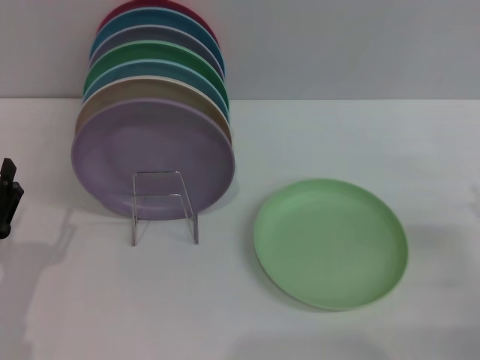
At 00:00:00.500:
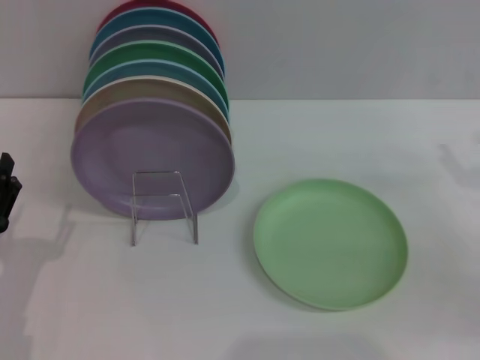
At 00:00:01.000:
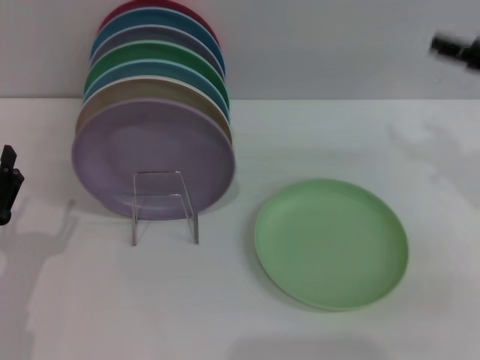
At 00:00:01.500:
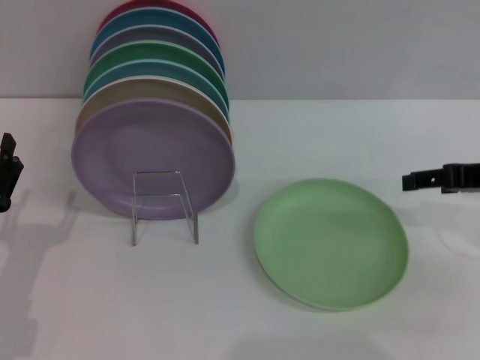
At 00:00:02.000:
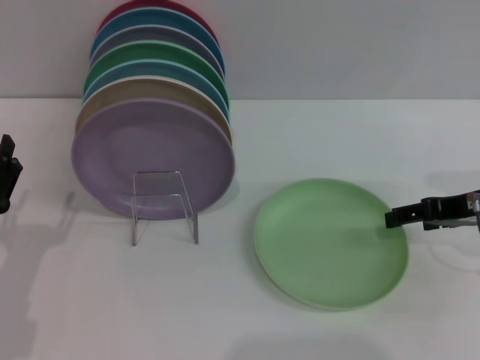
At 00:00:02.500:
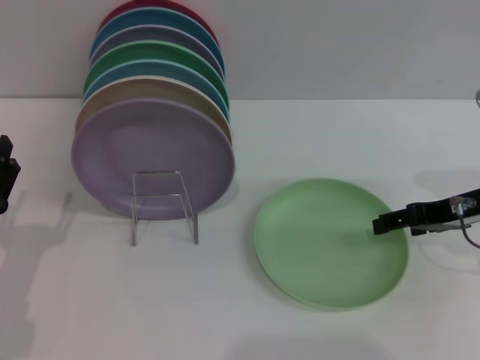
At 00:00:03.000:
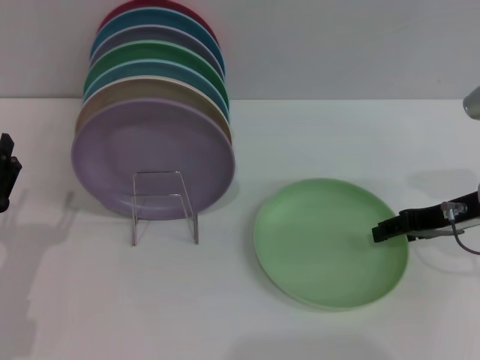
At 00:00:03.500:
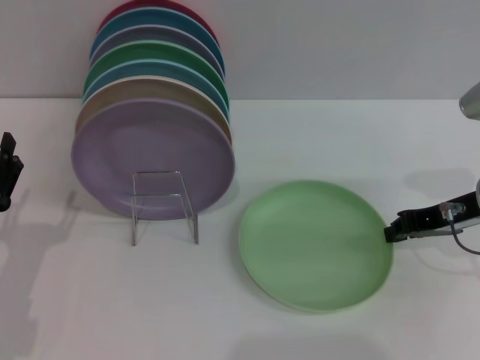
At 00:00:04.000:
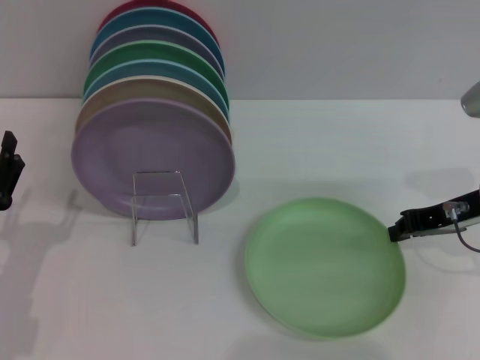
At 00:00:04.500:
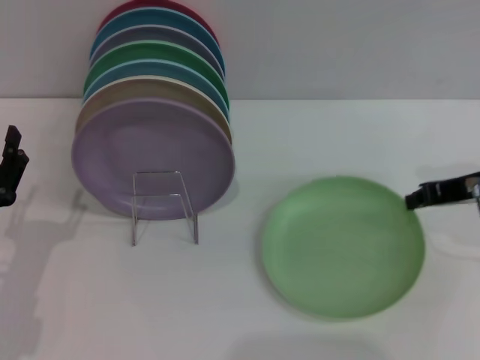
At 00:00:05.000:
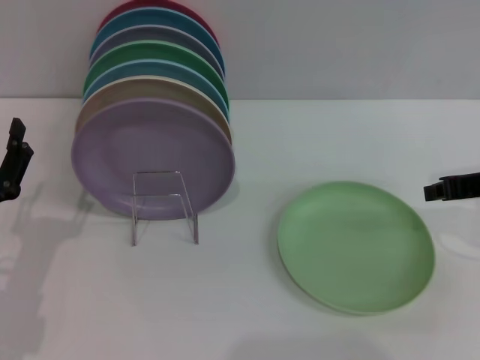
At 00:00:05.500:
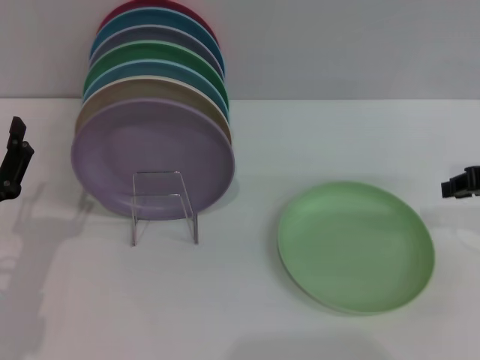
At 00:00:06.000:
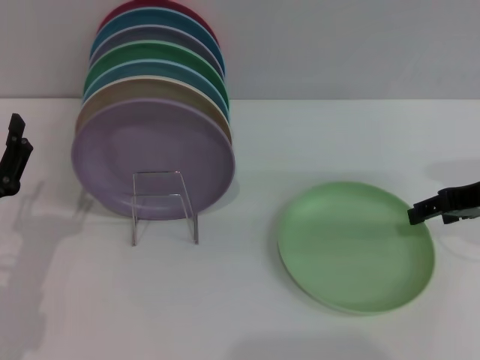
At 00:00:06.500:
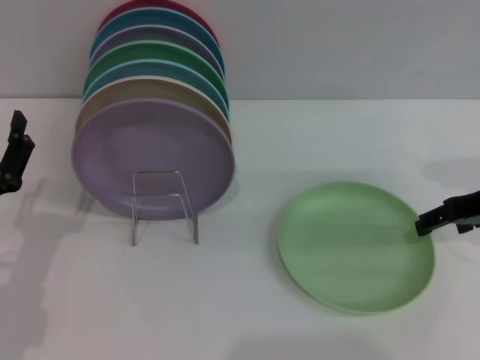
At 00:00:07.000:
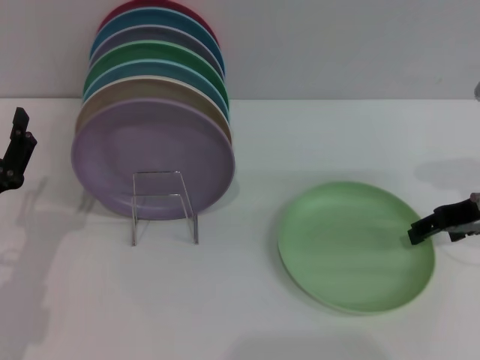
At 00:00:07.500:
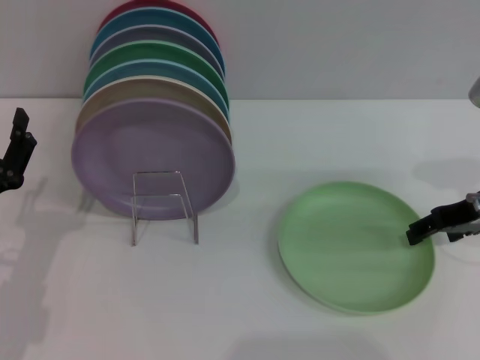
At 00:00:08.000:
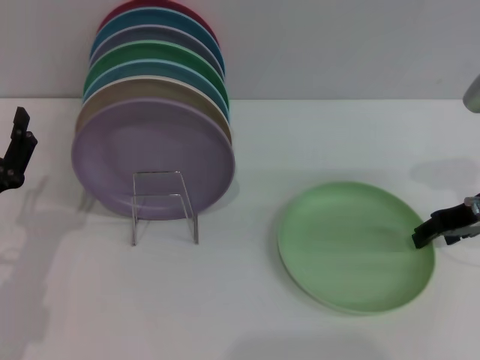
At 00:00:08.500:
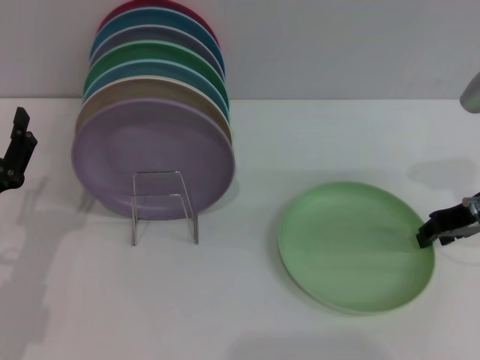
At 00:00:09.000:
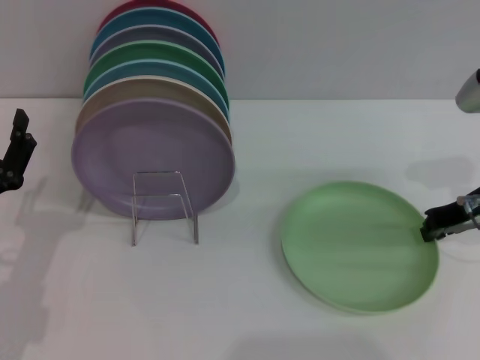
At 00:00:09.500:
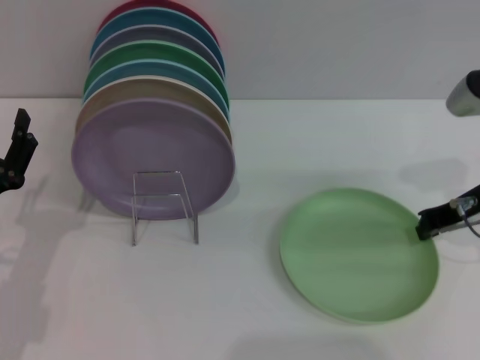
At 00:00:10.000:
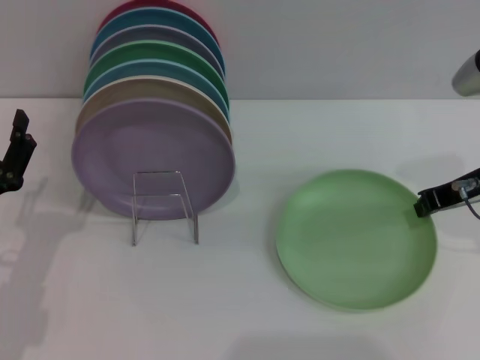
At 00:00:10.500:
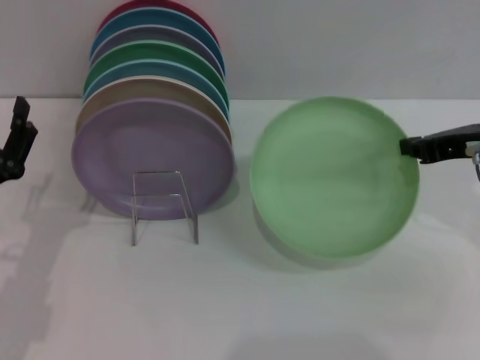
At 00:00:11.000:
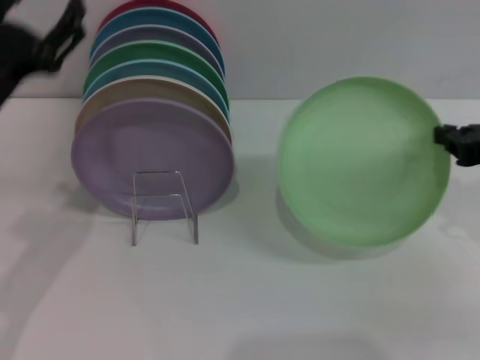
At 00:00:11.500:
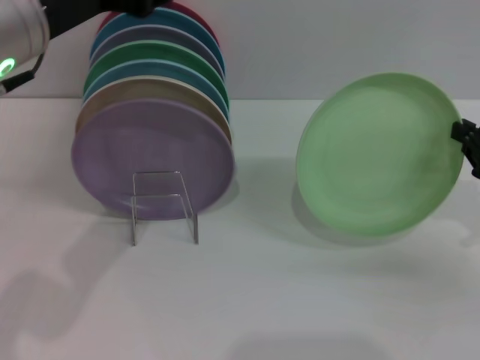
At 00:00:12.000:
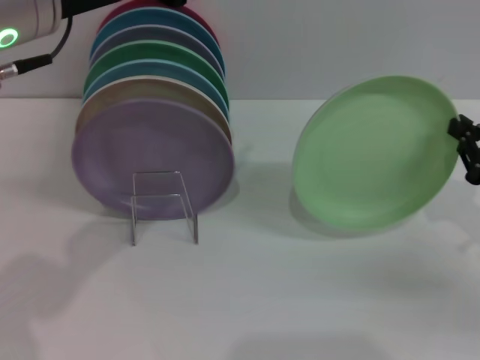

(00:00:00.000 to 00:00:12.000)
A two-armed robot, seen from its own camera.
Task of the whole recording: Grip the plate with one hand, pass it to the other, then set it on the shelf.
Step, 00:00:00.000 - 00:00:10.000: Pick up the plate with the right gripper.
00:00:00.000 - 00:00:02.000: The right gripper travels forward, upward and to the left by some 15 cm.
00:00:02.000 - 00:00:04.000: The right gripper closes its fingers.
00:00:04.000 - 00:00:06.000: The right gripper opens up.
00:00:06.000 - 00:00:08.000: The grippers stay close to where they were, moving slightly.
00:00:08.000 - 00:00:10.000: The right gripper closes up.
00:00:10.000 - 00:00:12.000: The left gripper goes roughly 30 cm upward and to the right, while the right gripper moves backward, to the right and downward, about 10 cm.

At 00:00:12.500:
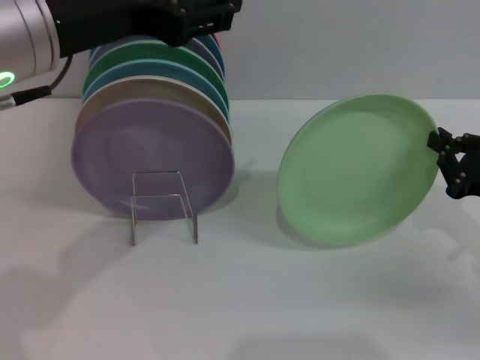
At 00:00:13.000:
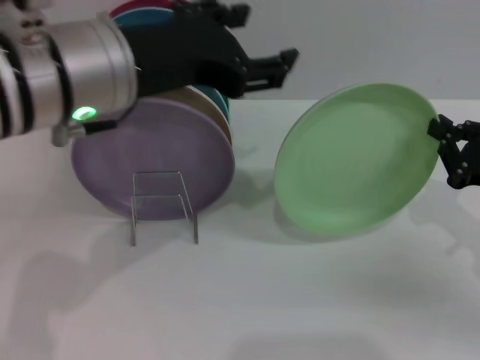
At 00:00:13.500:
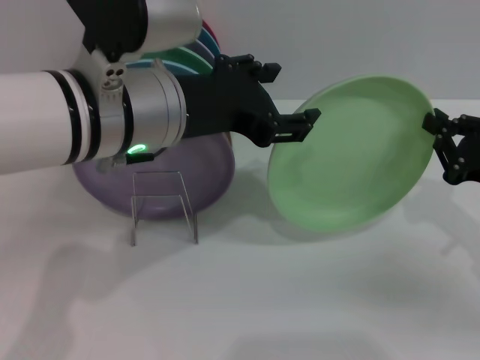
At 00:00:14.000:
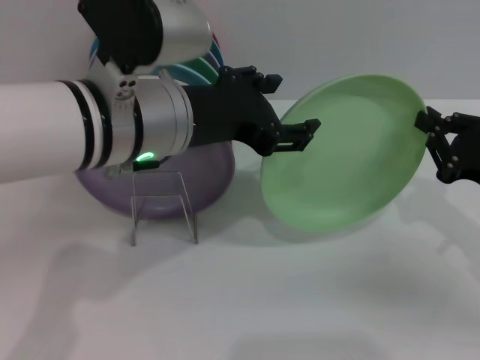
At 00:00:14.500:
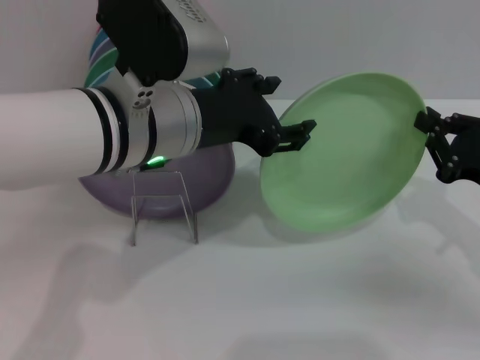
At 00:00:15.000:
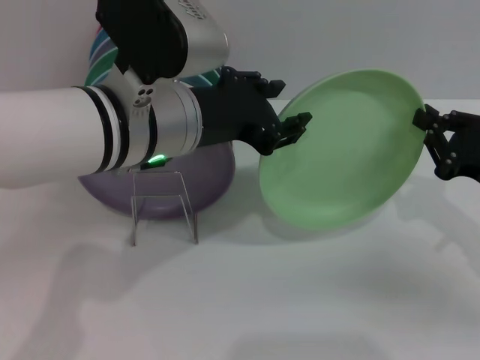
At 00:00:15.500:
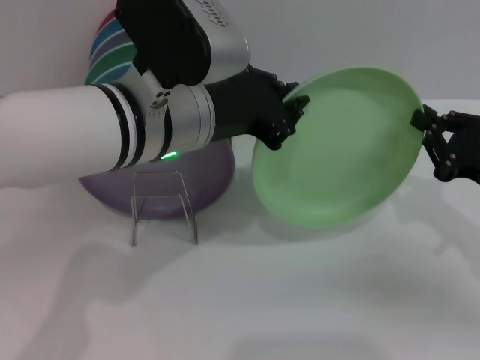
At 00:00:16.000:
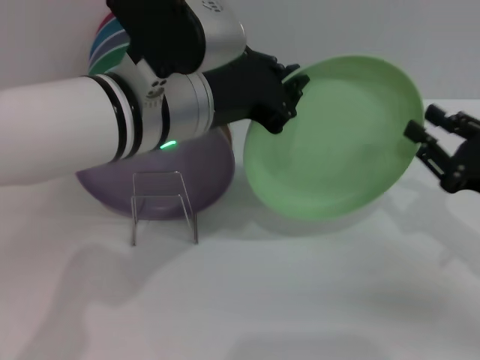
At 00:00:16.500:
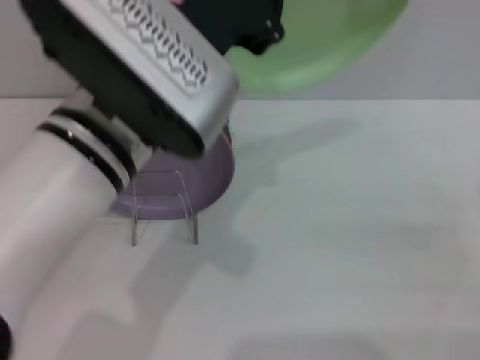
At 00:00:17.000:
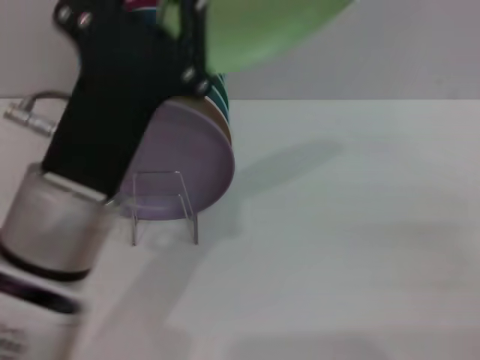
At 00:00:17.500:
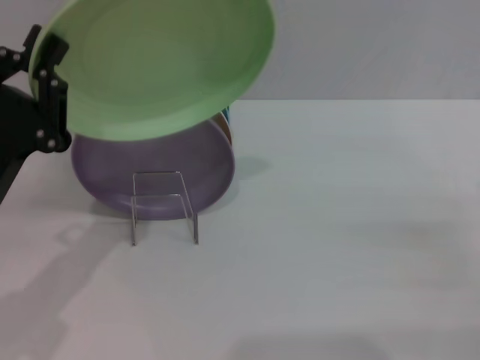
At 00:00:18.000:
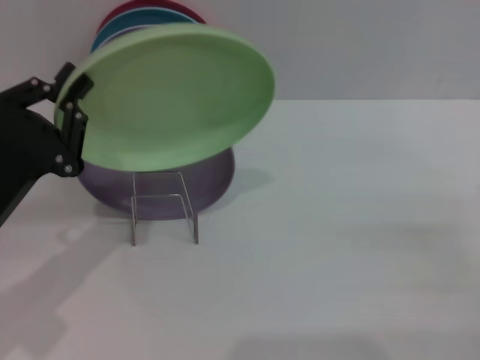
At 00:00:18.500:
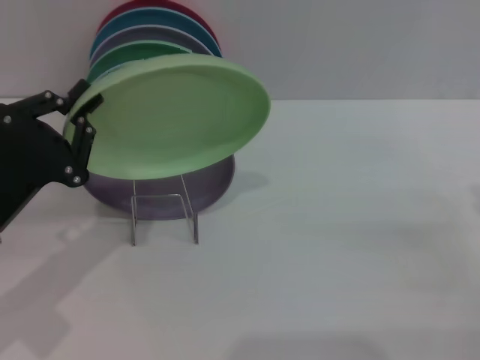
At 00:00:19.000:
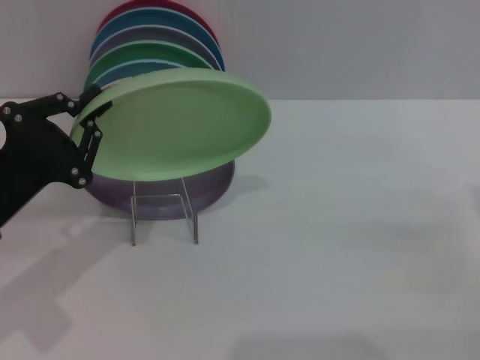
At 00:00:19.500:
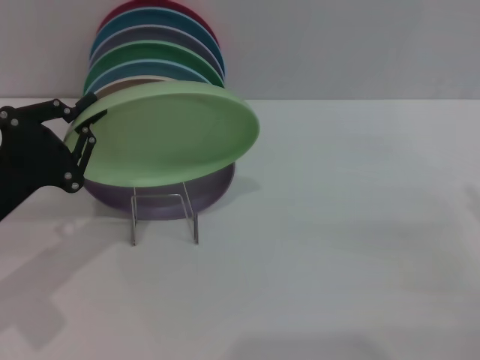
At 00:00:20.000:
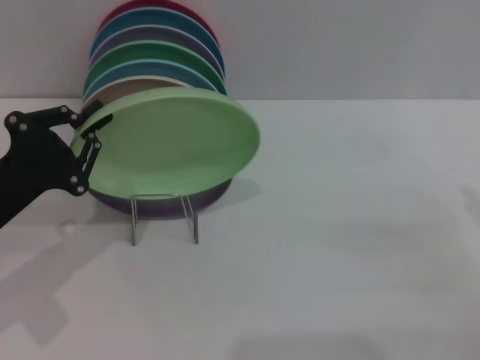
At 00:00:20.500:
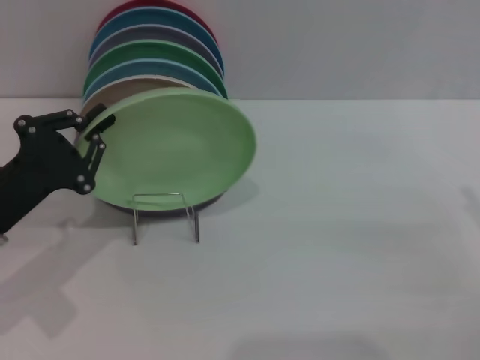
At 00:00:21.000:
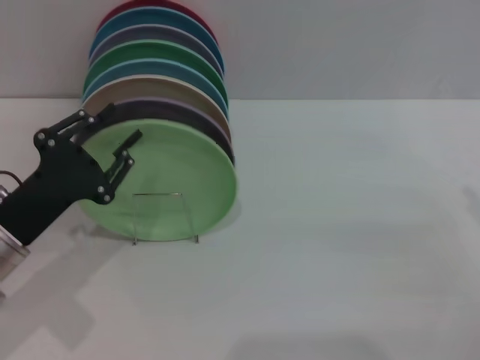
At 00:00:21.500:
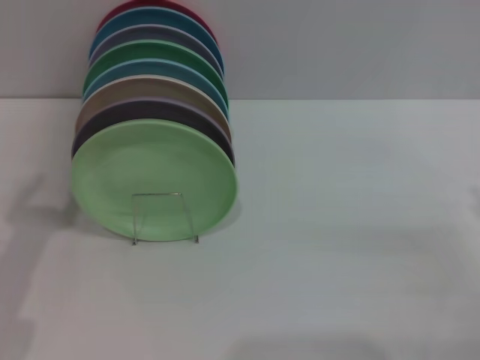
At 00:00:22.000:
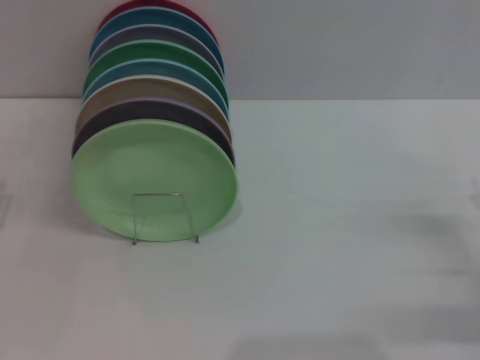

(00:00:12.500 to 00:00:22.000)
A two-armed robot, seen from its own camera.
Task of the whole recording: Grip the plate with one hand, pass it to the other, then set it on the shelf.
Step, 00:00:12.500 - 00:00:16.500: Pass the plate from the right gripper to the left gripper.
Step, 00:00:17.000 - 00:00:21.000: Place the plate on the shelf with the left gripper.
00:00:12.500 - 00:00:14.500: The left gripper is displaced downward and to the right by approximately 10 cm.
00:00:14.500 - 00:00:16.500: The left gripper closes. The right gripper goes about 10 cm backward and to the right, and opens up.
00:00:16.500 - 00:00:18.000: The left gripper goes some 20 cm to the left and downward.
00:00:18.000 - 00:00:20.000: The grippers make only small movements.
00:00:20.000 - 00:00:22.000: The left gripper is displaced to the left by approximately 5 cm, and opens its fingers.
